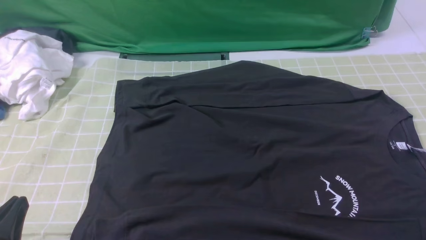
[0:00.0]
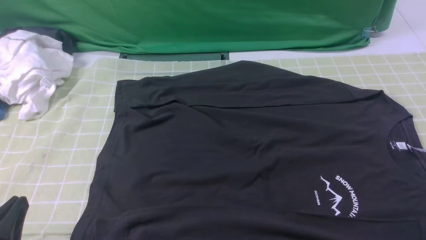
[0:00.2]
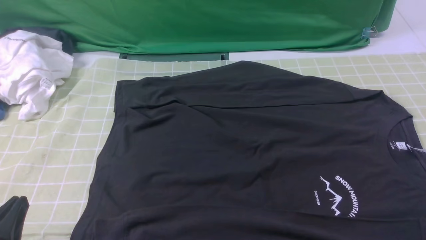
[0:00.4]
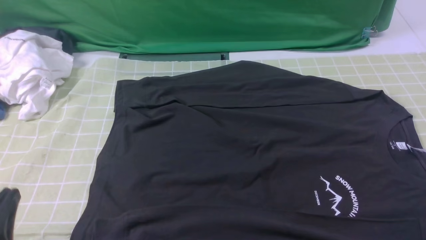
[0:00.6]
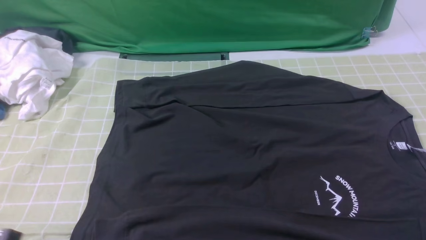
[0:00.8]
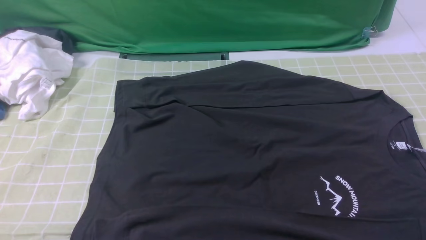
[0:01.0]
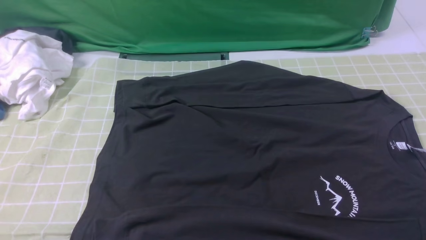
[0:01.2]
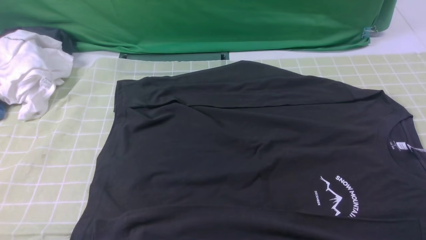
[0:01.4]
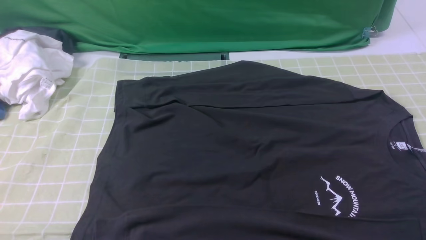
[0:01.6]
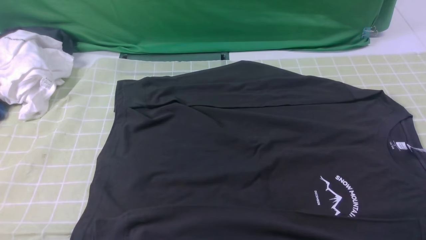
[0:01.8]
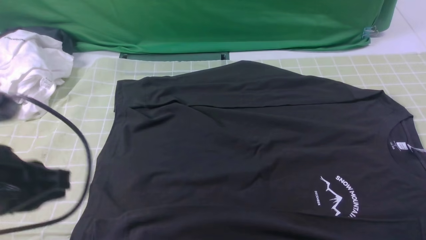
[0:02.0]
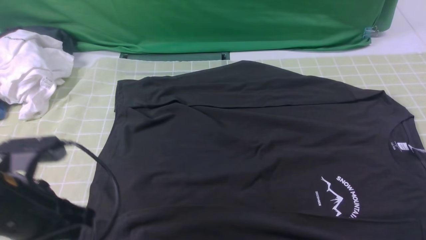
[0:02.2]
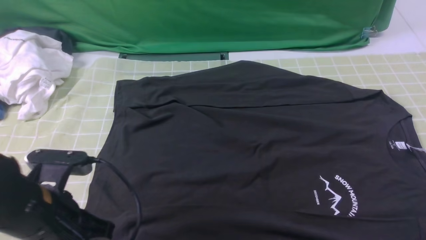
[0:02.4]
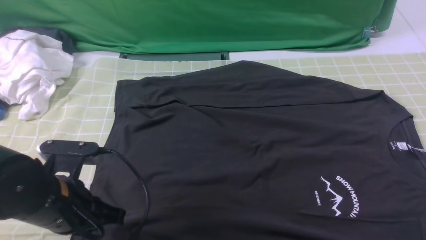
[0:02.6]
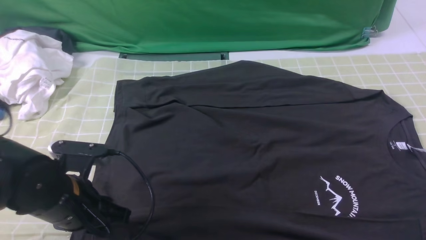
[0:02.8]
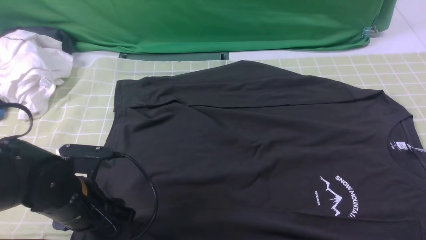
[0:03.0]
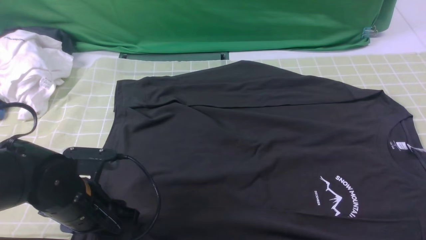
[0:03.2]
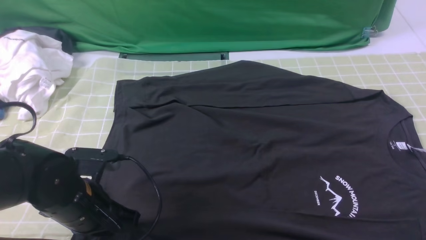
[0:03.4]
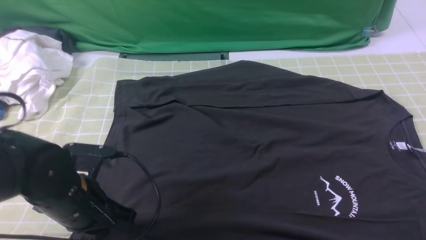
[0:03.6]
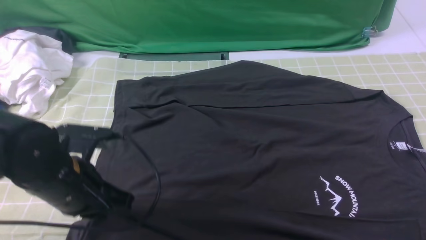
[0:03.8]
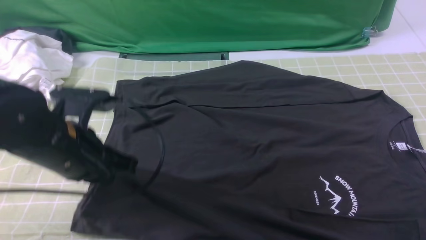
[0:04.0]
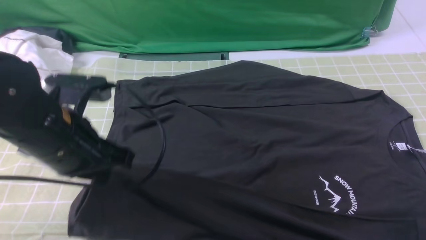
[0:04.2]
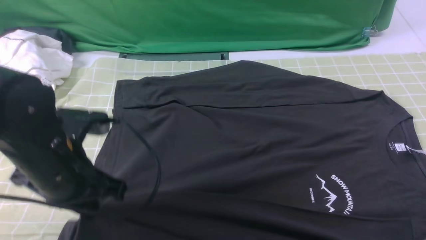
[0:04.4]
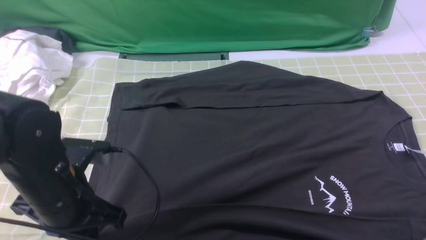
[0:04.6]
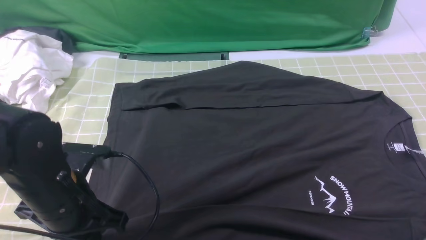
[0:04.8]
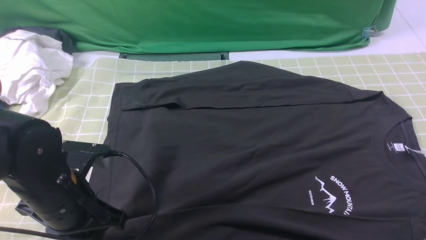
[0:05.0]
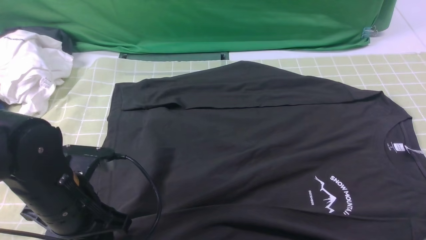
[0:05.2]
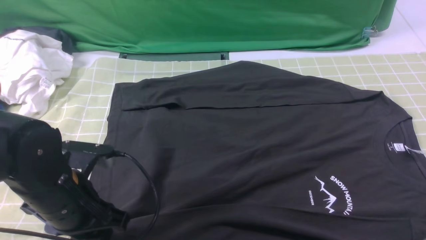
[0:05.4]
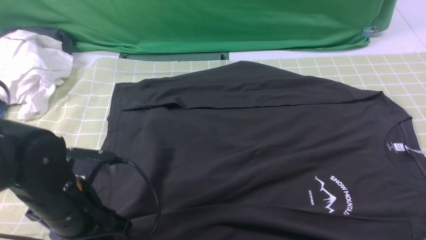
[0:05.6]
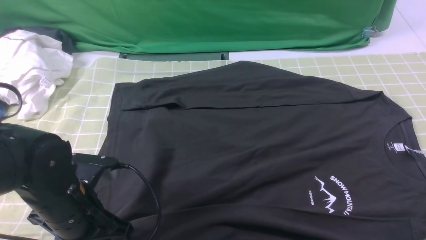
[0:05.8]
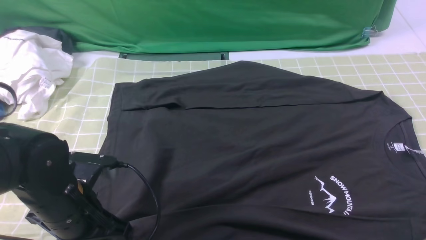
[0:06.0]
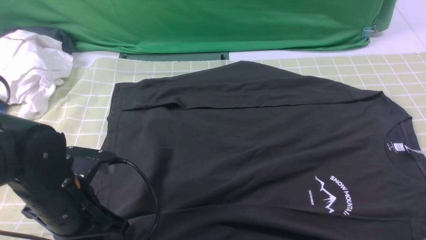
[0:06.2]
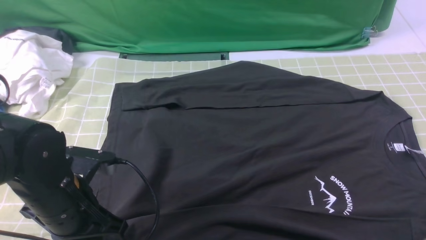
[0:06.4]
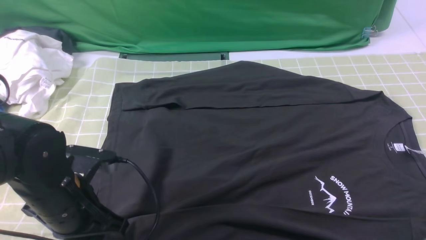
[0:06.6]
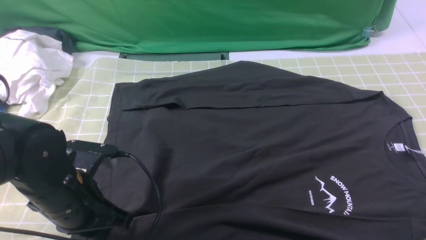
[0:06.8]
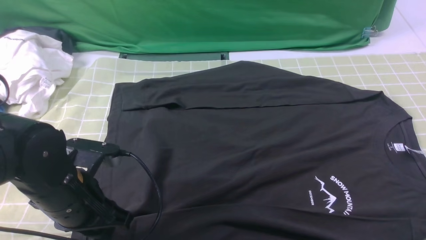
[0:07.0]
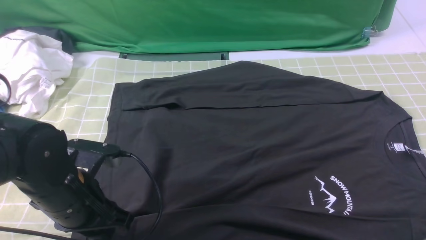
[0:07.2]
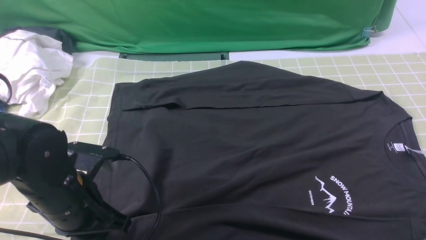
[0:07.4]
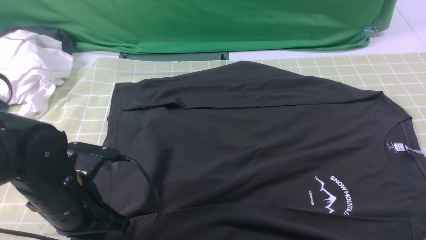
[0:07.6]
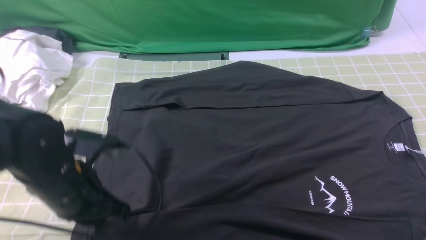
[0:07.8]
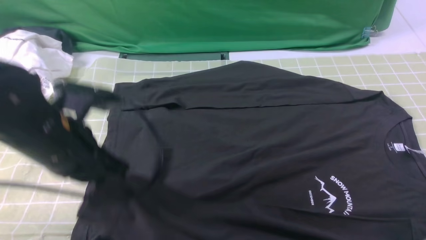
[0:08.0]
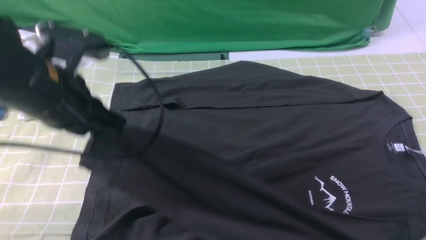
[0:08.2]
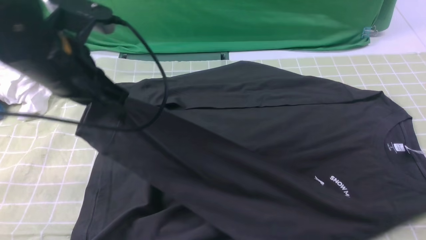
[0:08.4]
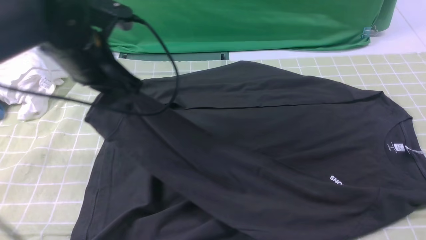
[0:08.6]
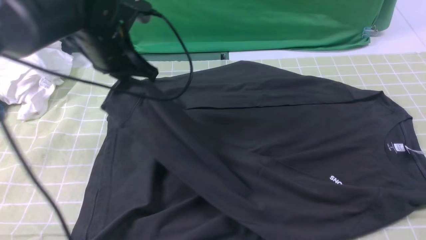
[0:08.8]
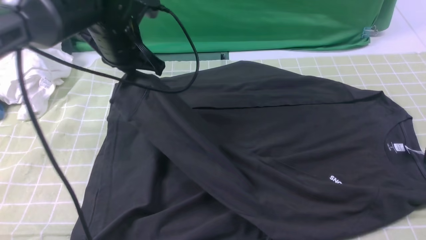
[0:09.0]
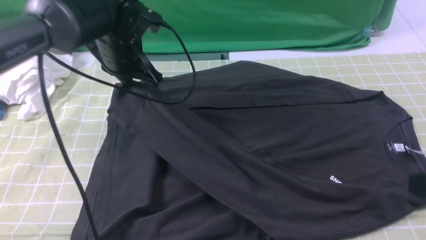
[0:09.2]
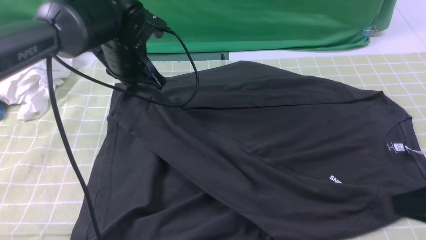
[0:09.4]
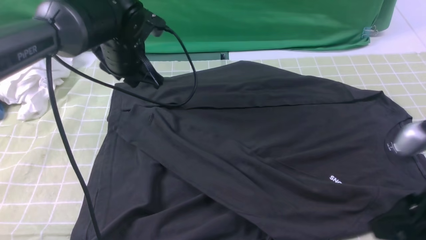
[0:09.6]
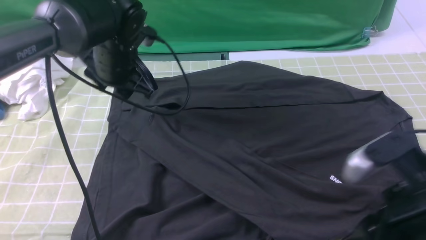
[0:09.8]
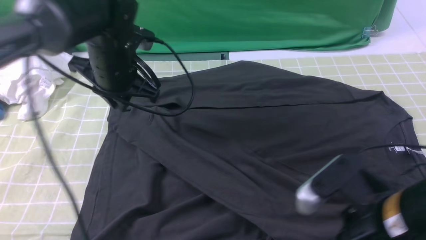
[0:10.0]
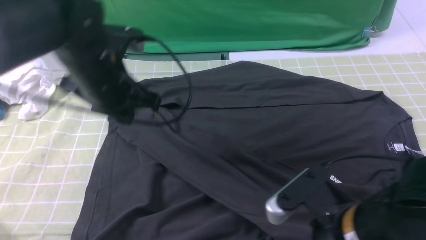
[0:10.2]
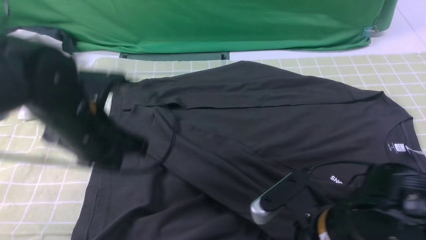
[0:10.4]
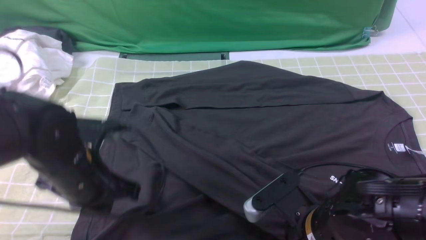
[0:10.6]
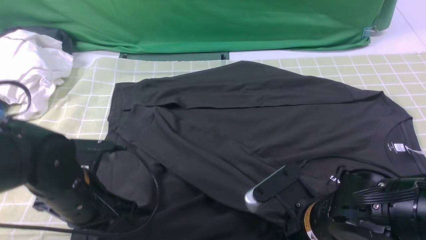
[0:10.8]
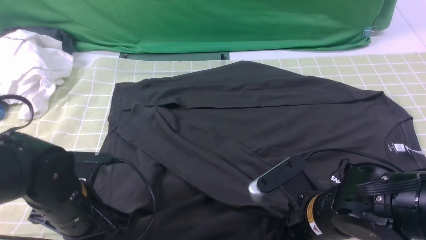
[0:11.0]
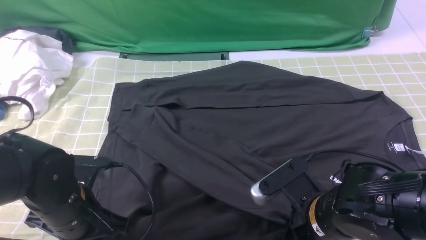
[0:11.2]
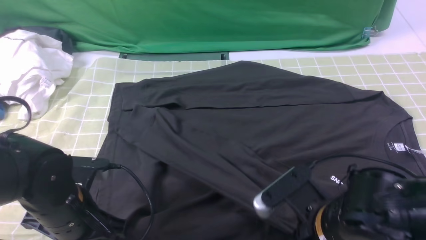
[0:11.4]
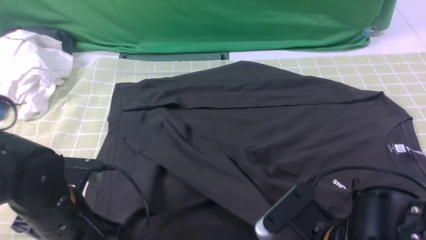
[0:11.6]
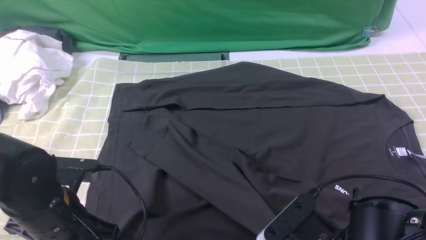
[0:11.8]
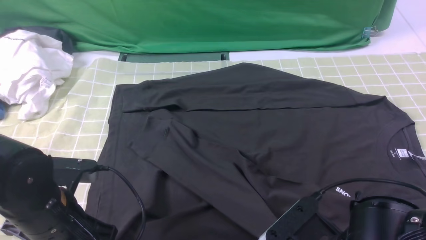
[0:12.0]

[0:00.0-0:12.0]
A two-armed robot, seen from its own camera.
Step, 0.0 to 7.4 s: use the left arm to clamp the cuff closest to it.
Step, 7.6 to 9.6 s: use the left arm to drag and place the cuff at the centered position on the left edge of the fabric.
0.0 to 1.6 s: The left gripper moves upward, some 15 cm.
1.6 to 3.0 s: The left gripper travels downward and forward by about 20 cm, and opens.
3.0 to 4.4 s: The left gripper heads upward, covering some 10 cm, and closes its fingers.
4.4 to 6.0 s: The left gripper is displaced downward by roughly 5 cm, and opens and closes again.
6.0 to 7.6 s: The left gripper opens and closes again.
7.6 to 9.0 s: The left gripper heads forward, covering some 20 cm.
9.0 to 10.4 s: The right gripper travels to the left and downward by approximately 20 cm, and opens its fingers, while the left gripper is displaced backward by some 15 cm, and opens, then closes once more.
10.4 to 12.0 s: The left gripper heads backward, covering some 10 cm; the right gripper closes up.

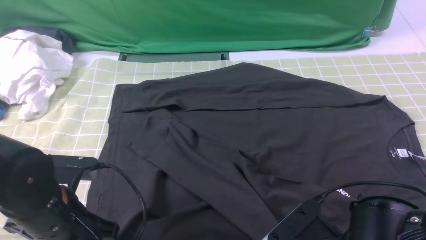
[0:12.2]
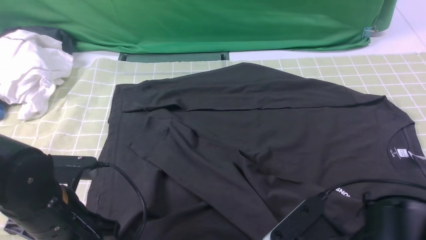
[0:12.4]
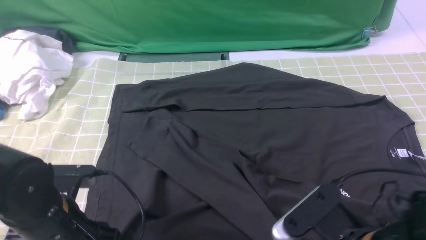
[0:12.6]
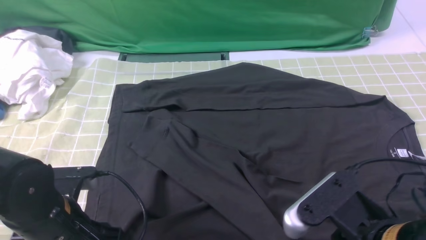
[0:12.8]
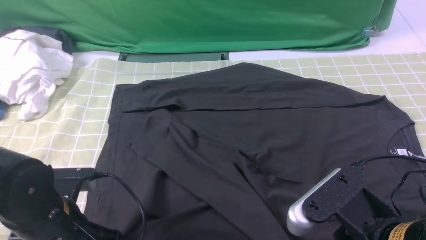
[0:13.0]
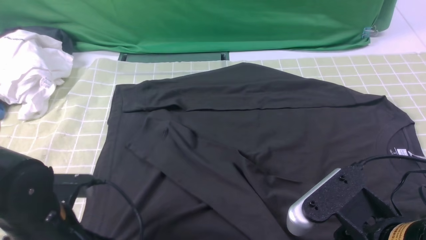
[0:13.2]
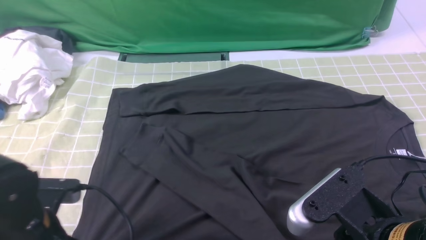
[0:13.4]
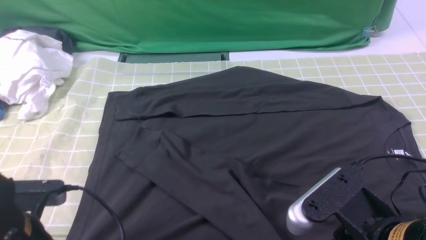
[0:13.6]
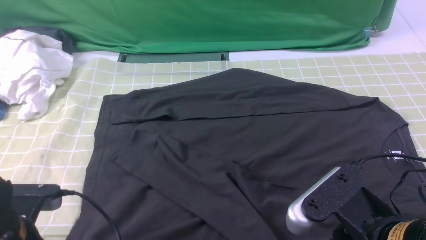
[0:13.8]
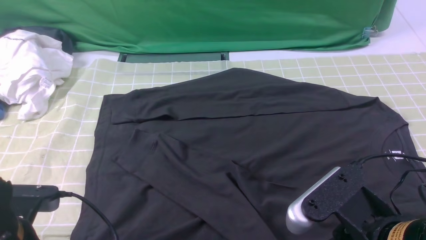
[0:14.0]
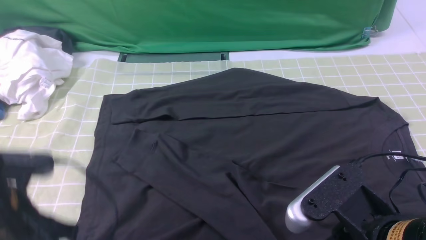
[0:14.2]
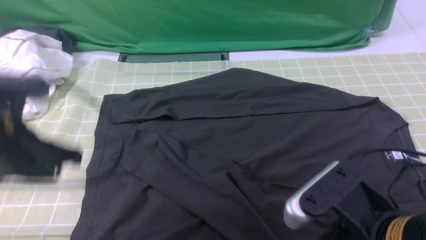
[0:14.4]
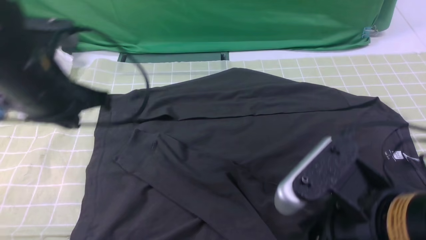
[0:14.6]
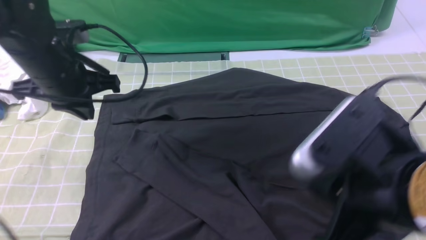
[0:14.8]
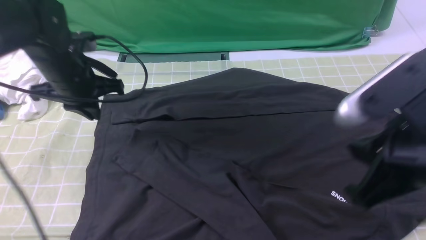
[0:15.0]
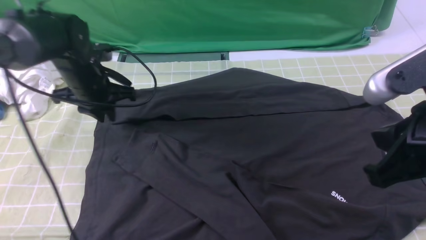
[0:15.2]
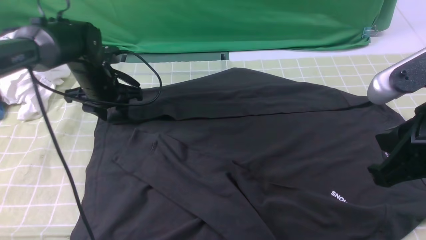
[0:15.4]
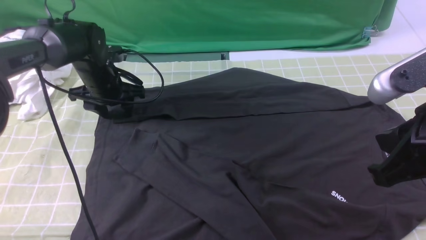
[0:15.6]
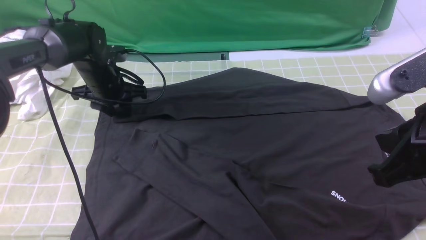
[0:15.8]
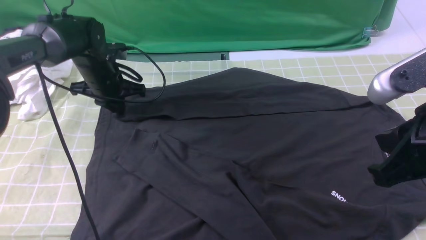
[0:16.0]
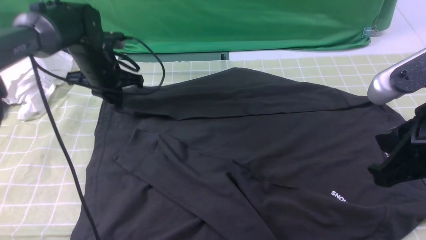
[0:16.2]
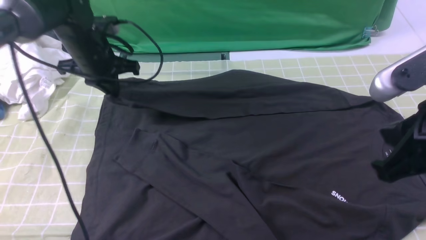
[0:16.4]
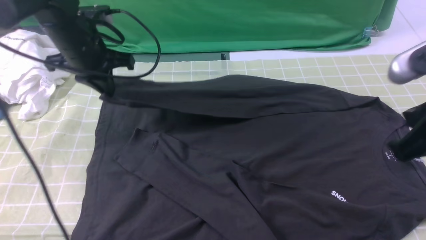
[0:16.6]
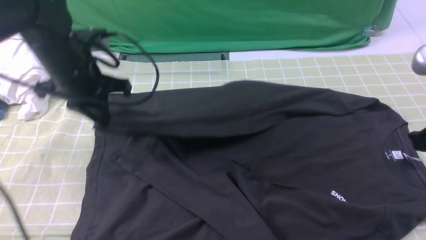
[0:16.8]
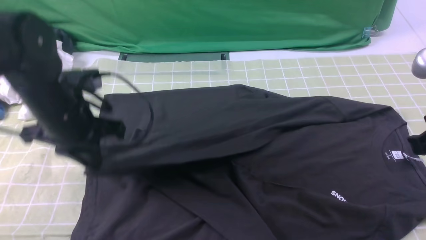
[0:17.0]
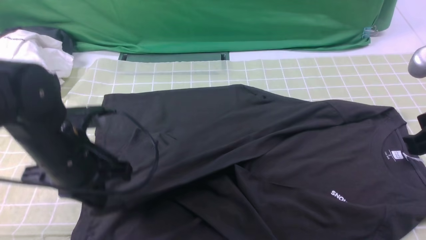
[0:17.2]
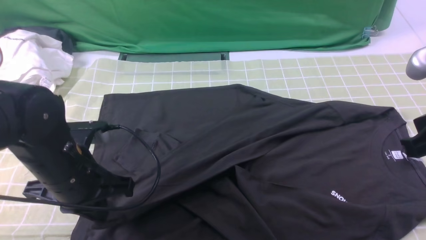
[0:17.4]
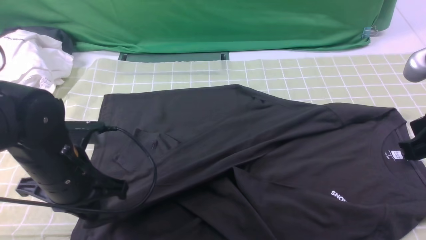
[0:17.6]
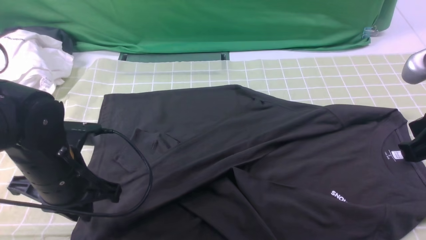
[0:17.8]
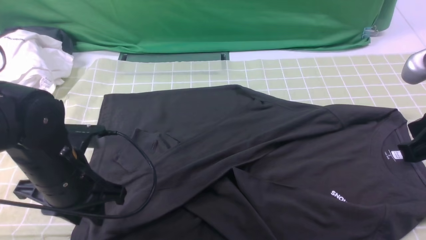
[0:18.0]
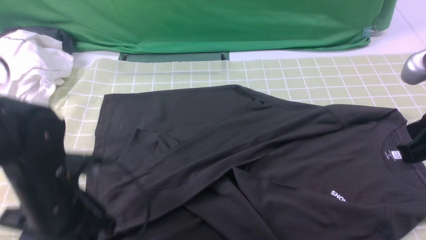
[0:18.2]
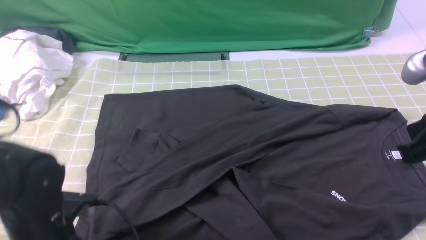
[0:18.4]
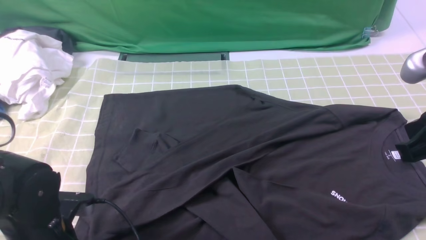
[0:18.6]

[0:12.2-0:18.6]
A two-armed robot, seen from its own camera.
Step, 12.2 to 16.0 s: use the left arm to clamp the cuff farthest from it.
Step, 16.2 to 18.0 s: use the left arm to drag and drop the cuff onto the cuff closest to the left arm.
12.2 to 13.8 s: The left gripper ends up roughly 5 cm from where it was, and opens, then closes again. The right gripper is displaced upward by some 5 cm.
13.8 to 15.4 s: The left gripper heads forward, covering about 30 cm, and opens; the right gripper moves upward, forward and to the right, about 10 cm, and closes its fingers.
15.4 to 17.0 s: The left gripper is displaced backward and upward by some 15 cm, and closes, while the right gripper ends up approximately 5 cm from where it was.
17.0 to 18.6 s: The left gripper goes some 15 cm backward and downward, and opens.
